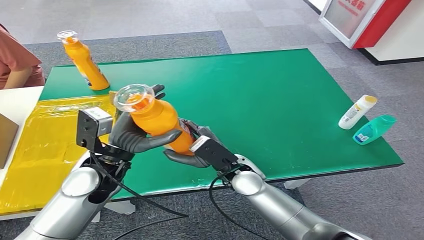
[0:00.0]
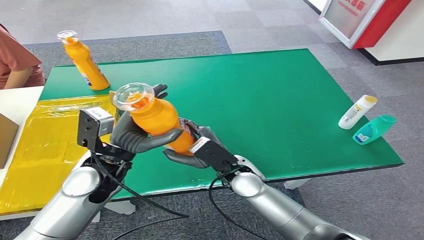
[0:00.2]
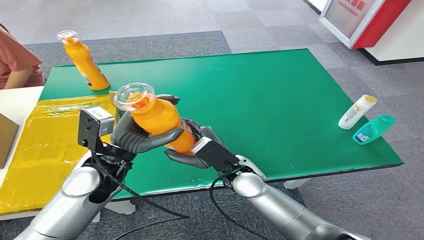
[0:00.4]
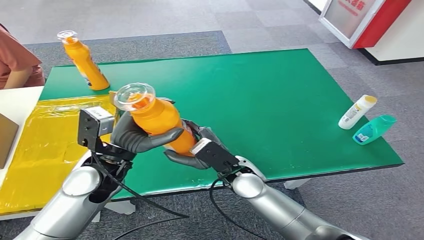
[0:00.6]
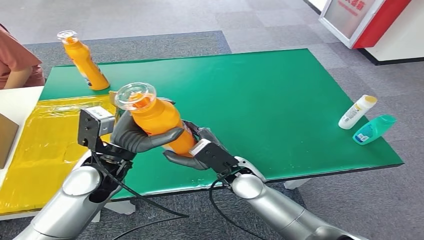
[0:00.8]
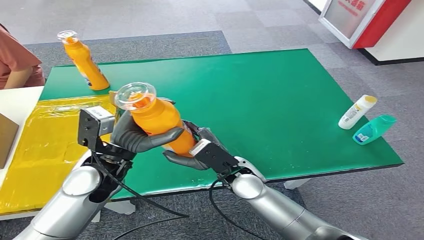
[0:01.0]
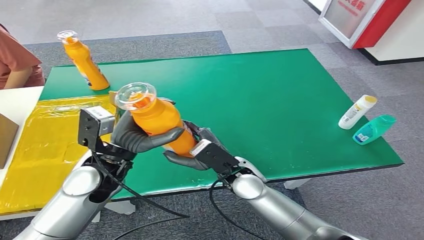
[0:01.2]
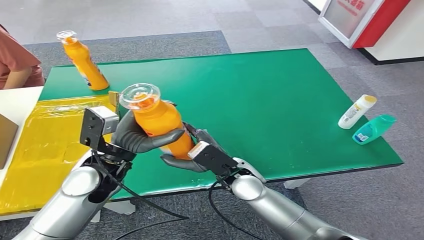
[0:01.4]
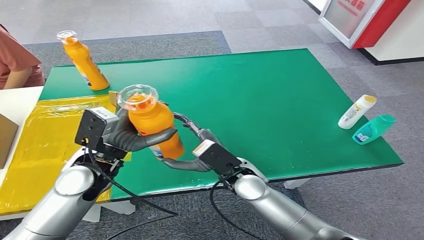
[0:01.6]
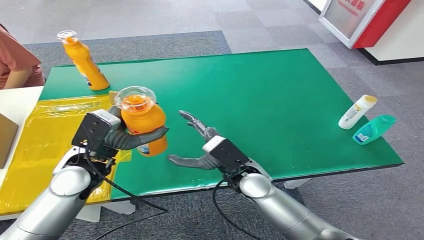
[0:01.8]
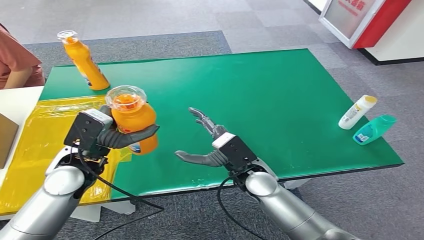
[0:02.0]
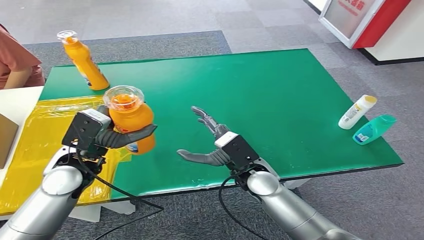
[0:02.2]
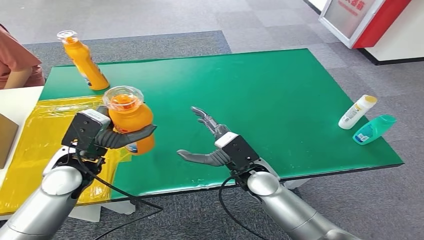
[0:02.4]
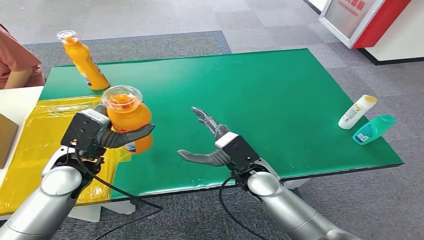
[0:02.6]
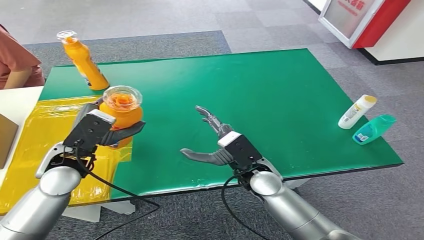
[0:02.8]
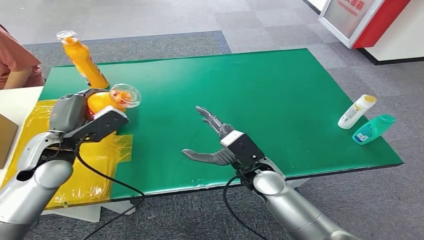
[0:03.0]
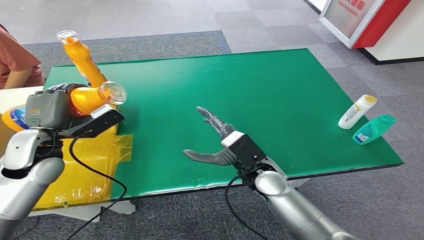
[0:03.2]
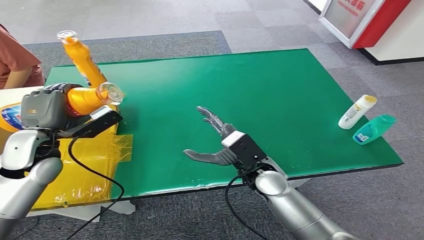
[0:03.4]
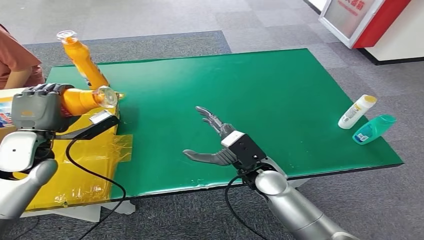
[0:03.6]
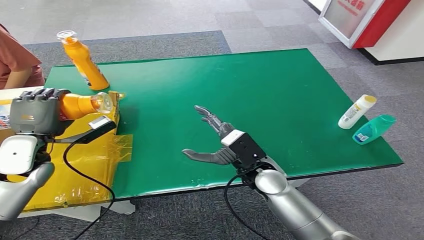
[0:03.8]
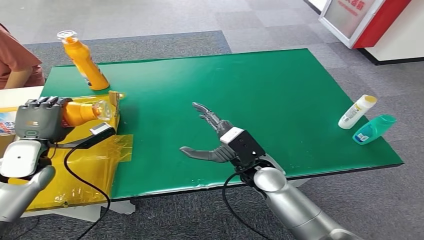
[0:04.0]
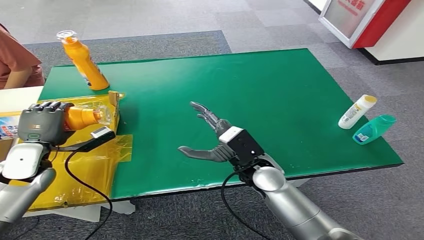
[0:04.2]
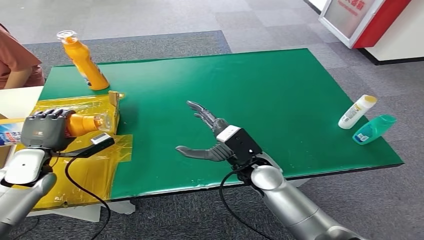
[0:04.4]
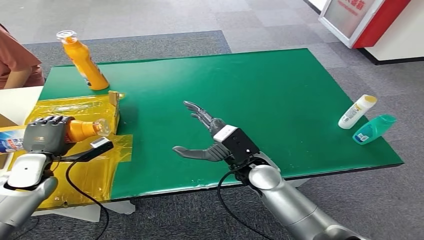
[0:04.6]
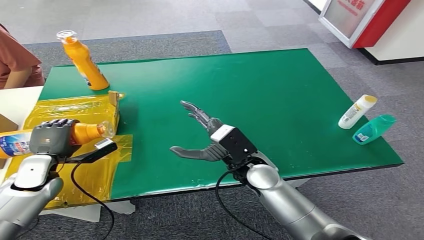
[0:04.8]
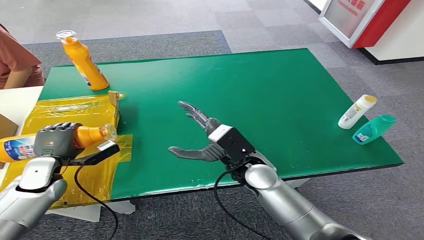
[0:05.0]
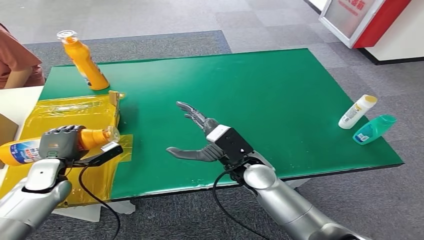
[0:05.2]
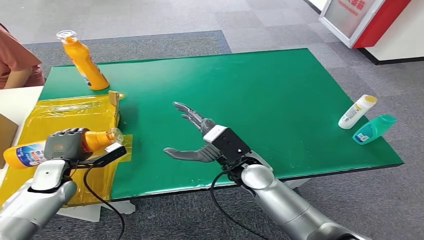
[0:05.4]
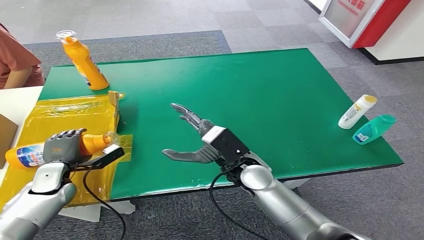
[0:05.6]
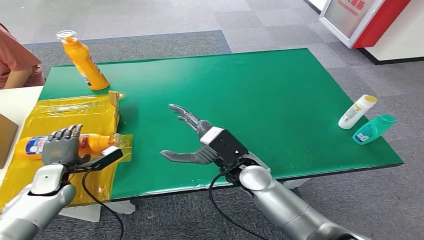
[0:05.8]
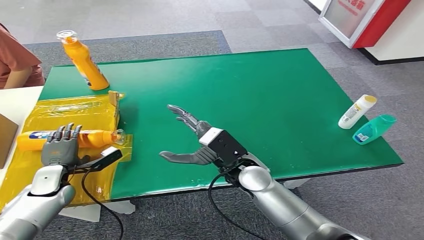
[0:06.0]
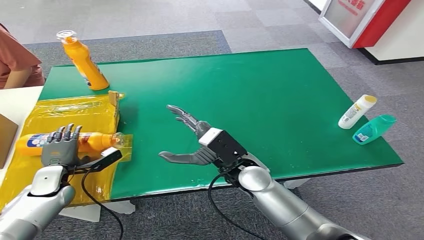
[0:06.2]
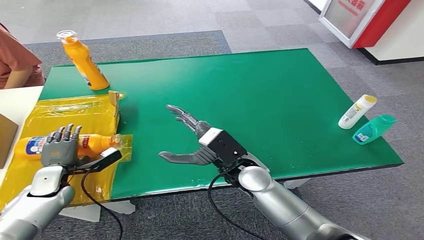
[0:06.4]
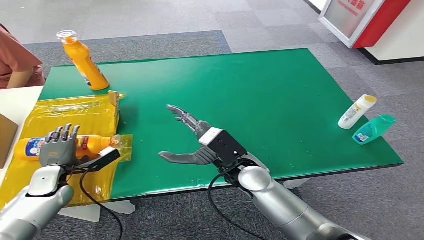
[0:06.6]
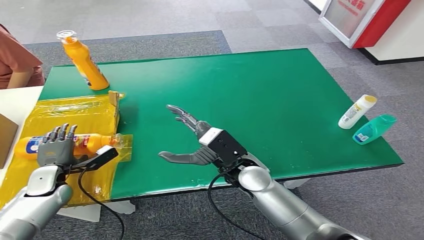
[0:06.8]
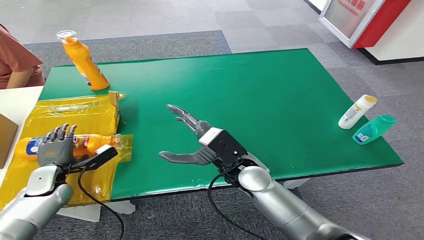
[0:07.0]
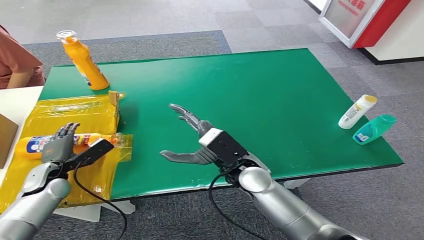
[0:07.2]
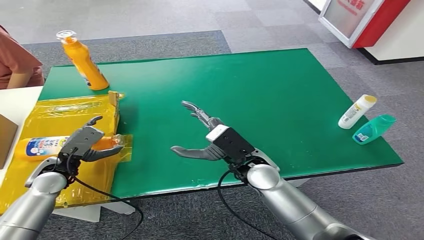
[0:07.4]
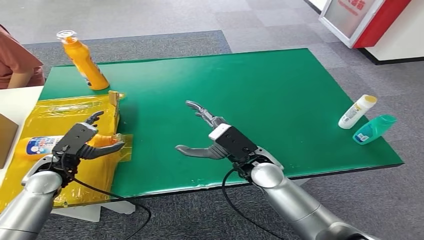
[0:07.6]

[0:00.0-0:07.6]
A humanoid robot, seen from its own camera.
Step, 0:00.0 to 0:07.6: Turn the bottle to the front side.
0:00.0 to 0:01.6: There are only small adjustments of the hands.
0:03.0 to 0:04.6: The left hand heads downward and to the left, covering some 15 cm.
0:04.6 to 0:06.0: The left hand shifts about 5 cm downward.
0:06.0 to 0:07.6: The left hand is displaced upward by approximately 5 cm.

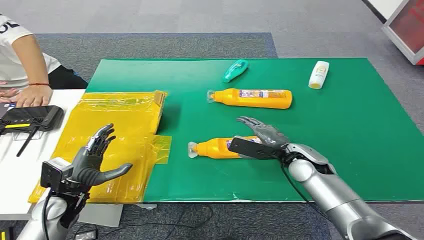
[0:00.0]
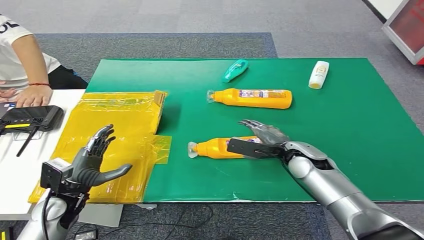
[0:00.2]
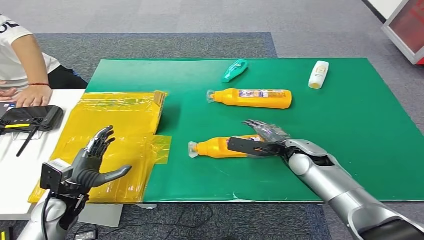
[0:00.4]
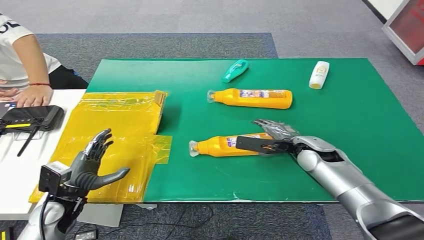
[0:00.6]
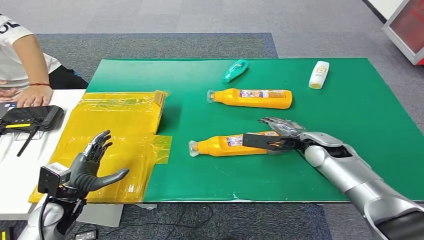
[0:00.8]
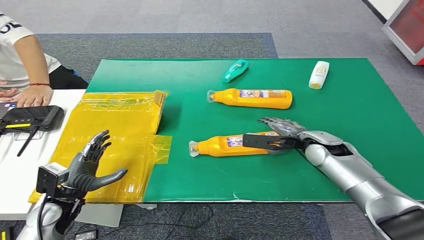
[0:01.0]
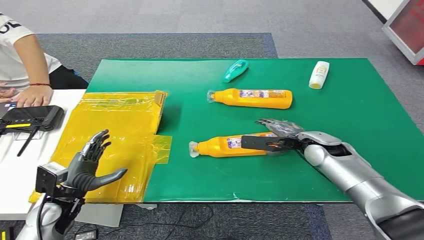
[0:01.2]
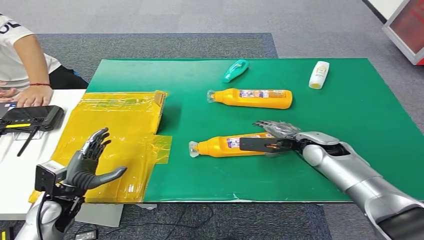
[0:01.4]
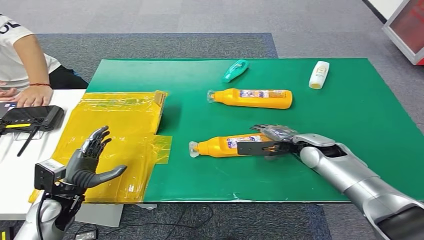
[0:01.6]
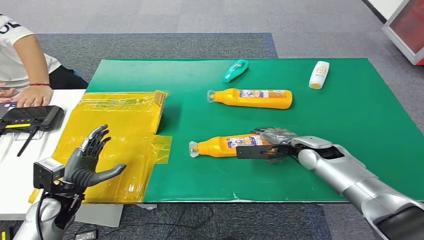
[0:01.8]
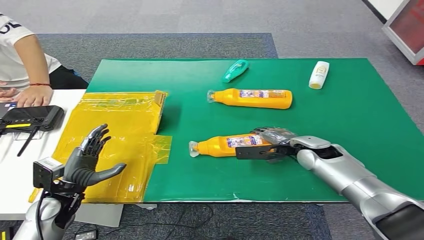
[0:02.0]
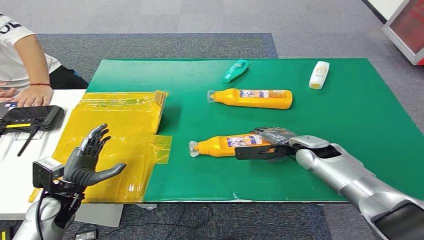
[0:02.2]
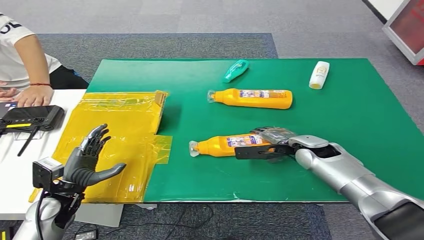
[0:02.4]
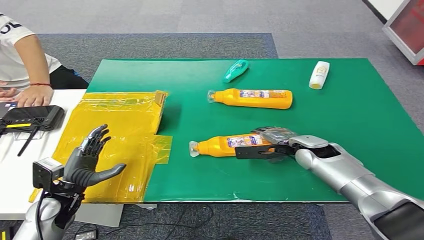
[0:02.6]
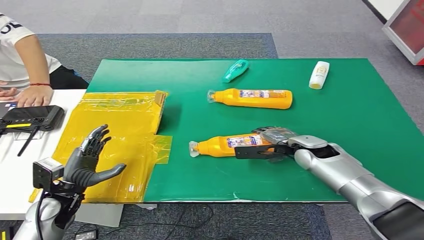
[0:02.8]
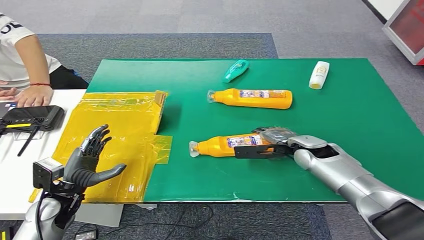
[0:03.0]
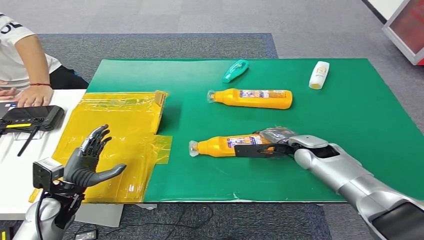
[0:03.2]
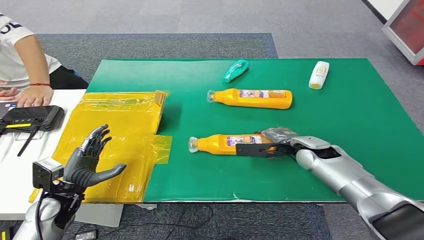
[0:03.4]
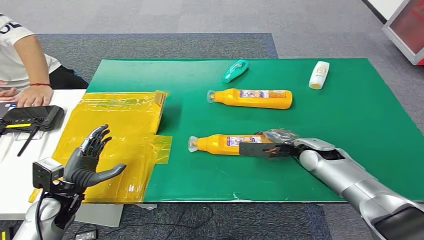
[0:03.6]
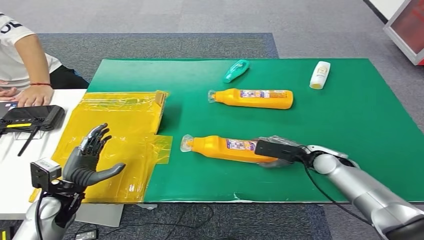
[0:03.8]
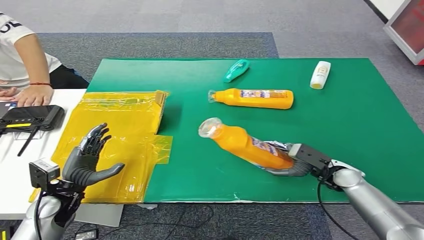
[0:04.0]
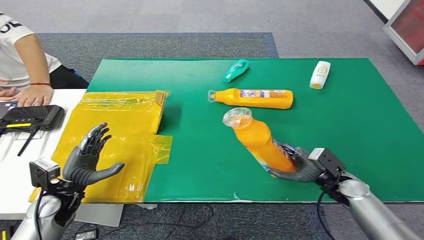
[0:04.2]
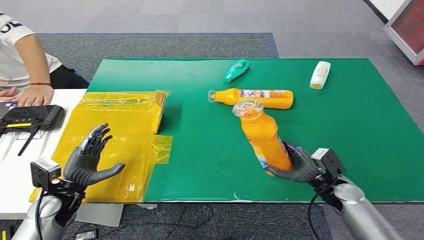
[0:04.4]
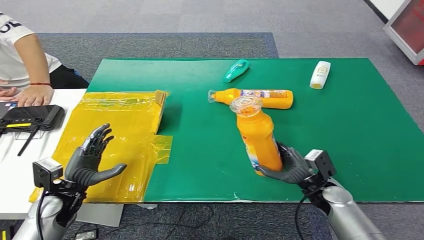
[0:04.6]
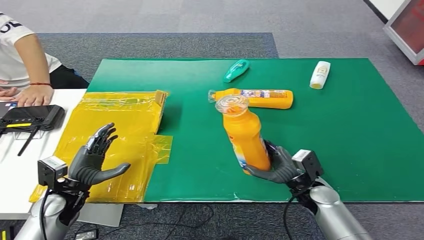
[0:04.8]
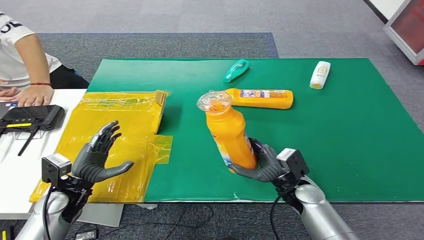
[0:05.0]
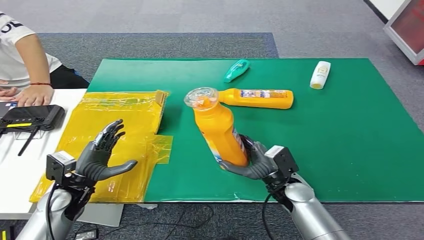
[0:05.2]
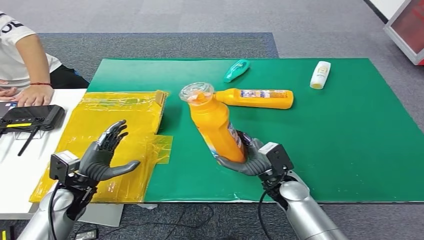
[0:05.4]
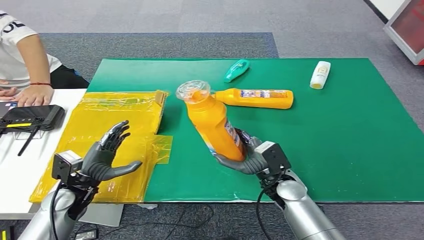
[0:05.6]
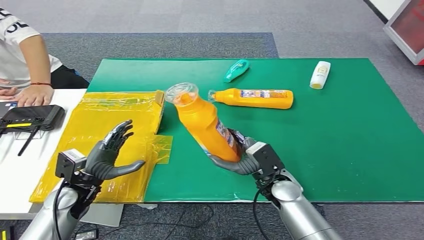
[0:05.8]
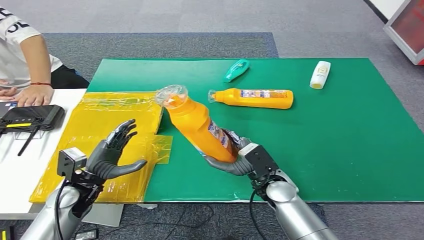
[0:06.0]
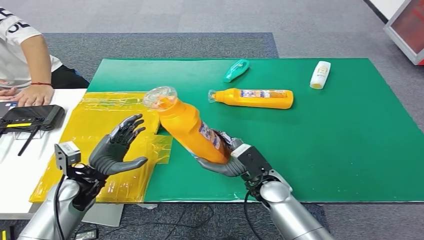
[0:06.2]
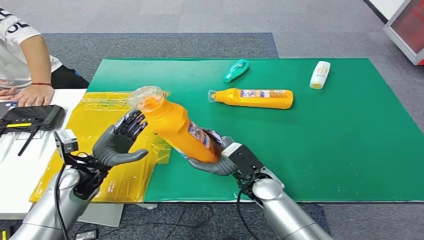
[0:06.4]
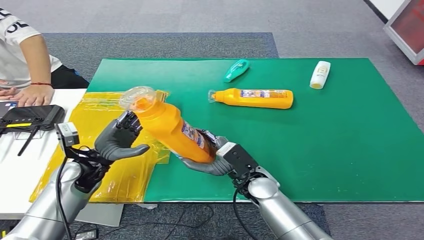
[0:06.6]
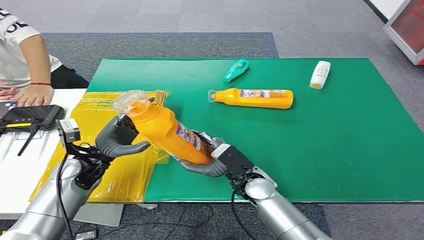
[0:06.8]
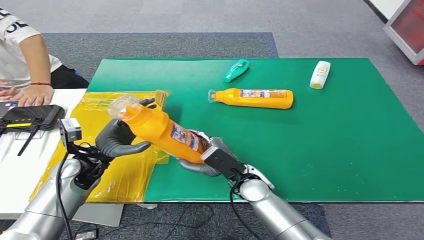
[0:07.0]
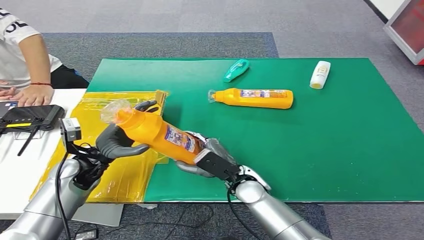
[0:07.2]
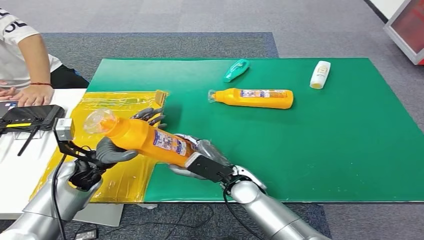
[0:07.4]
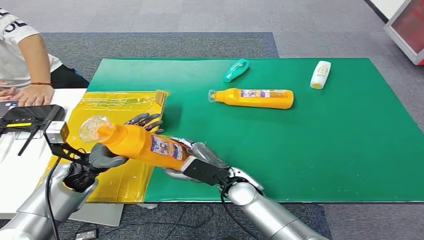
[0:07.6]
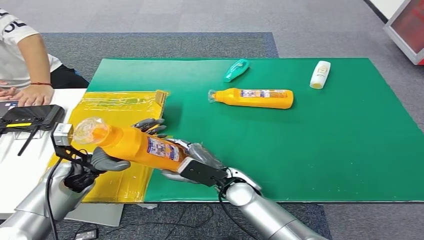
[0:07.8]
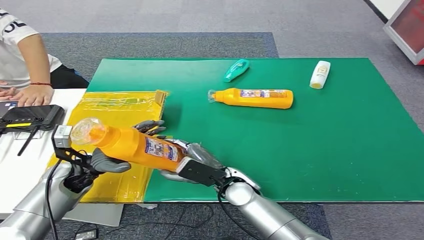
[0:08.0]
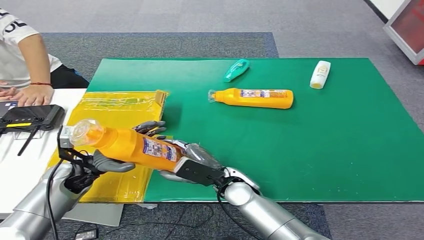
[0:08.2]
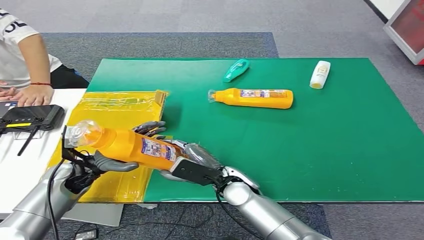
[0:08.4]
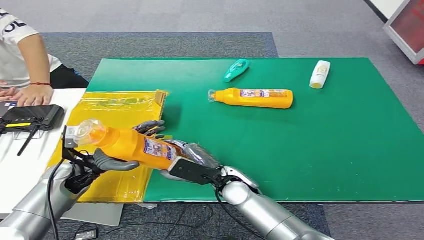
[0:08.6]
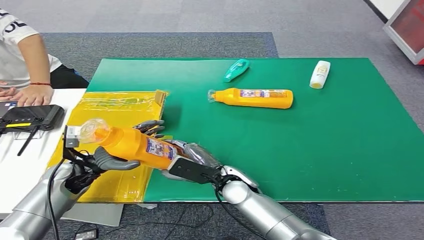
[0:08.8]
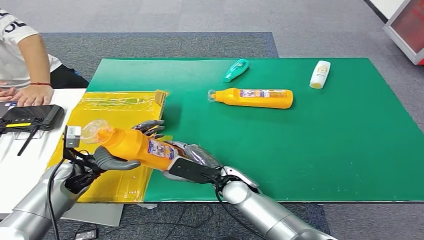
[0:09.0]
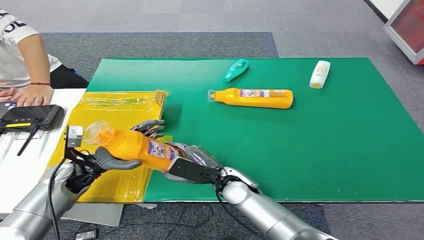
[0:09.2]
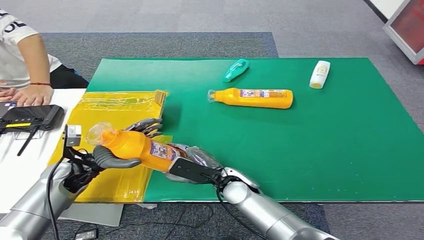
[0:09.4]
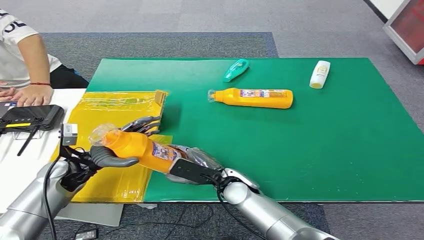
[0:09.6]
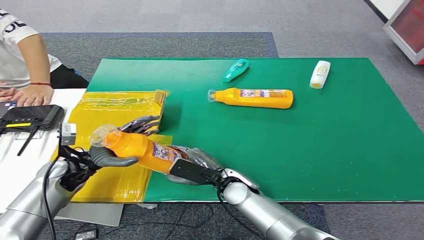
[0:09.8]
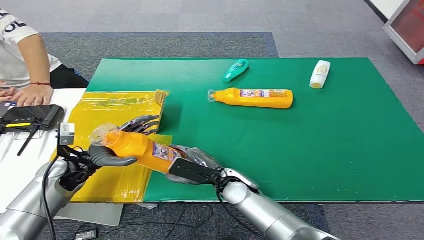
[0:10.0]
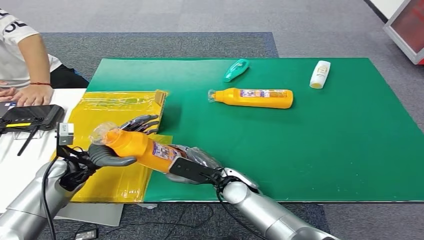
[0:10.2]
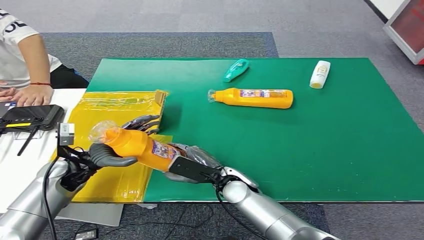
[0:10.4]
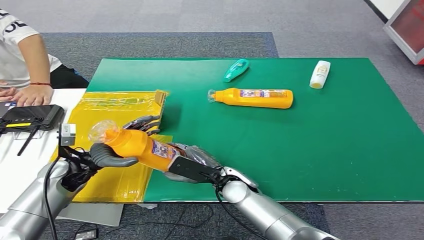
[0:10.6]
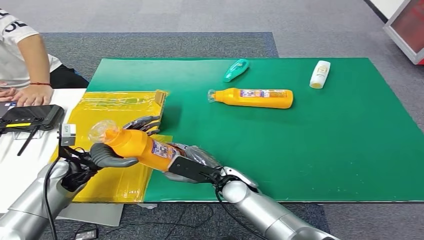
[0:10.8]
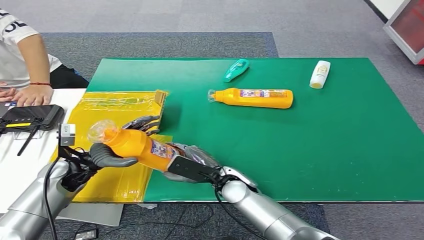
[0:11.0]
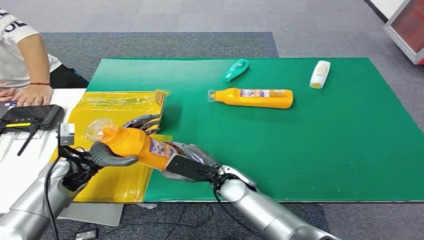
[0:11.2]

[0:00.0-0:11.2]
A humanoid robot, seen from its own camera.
Step, 0:00.0 to 0:04.4: Pick up the bottle from the table.
0:01.6 to 0:03.2: There are only small adjustments of the hands.
0:03.2 to 0:04.8: The right hand moves backward and downward, roughly 15 cm.
0:04.8 to 0:06.4: The left hand goes roughly 5 cm forward. The right hand shifts roughly 15 cm to the left.
0:08.0 to 0:09.6: The hands make only small movements.
0:09.6 to 0:11.2: Neither hand changes place.
